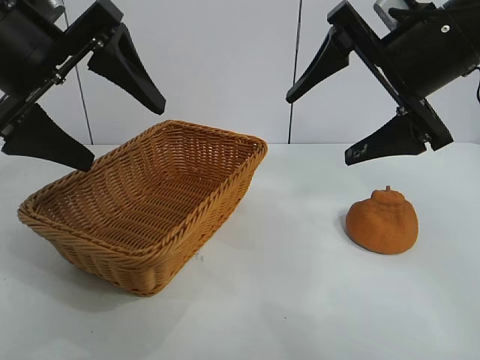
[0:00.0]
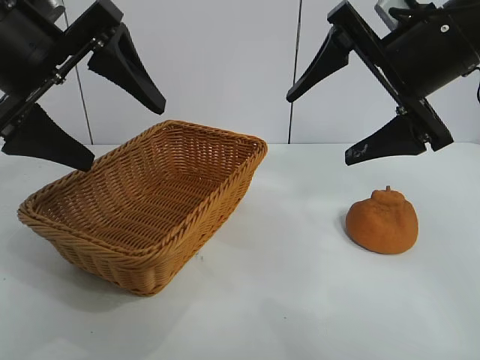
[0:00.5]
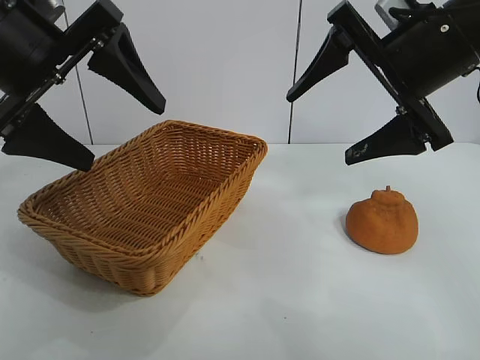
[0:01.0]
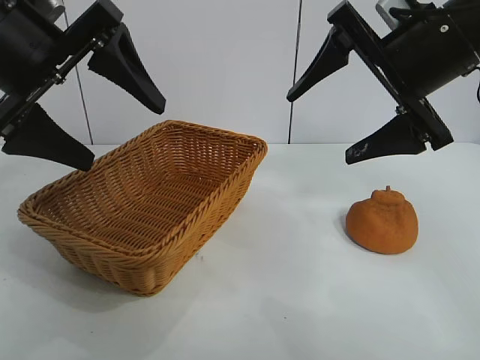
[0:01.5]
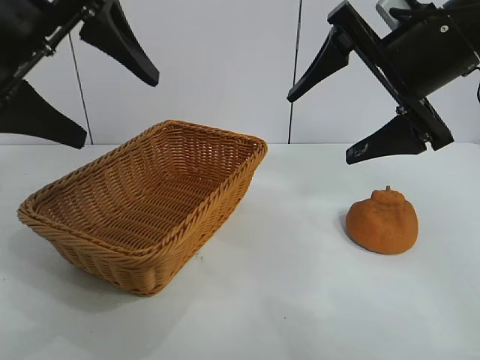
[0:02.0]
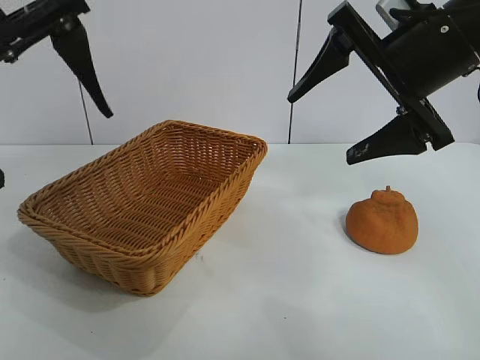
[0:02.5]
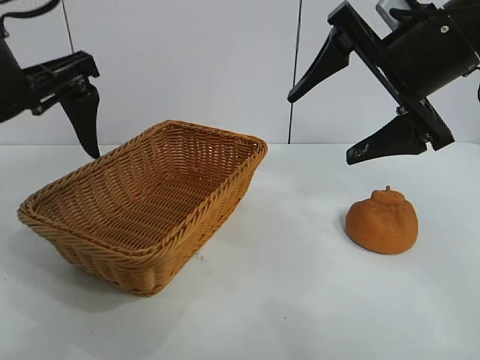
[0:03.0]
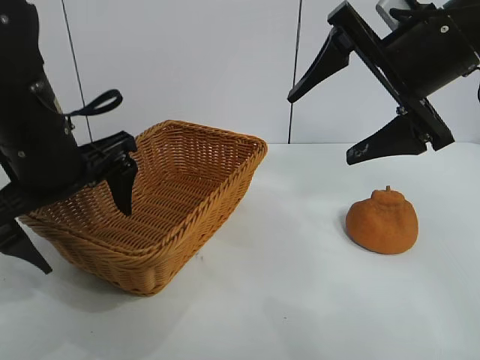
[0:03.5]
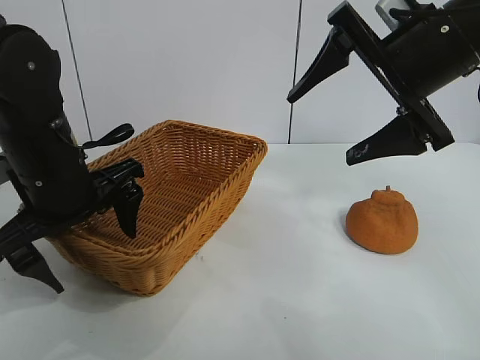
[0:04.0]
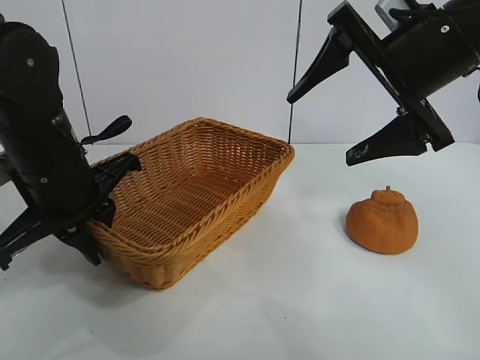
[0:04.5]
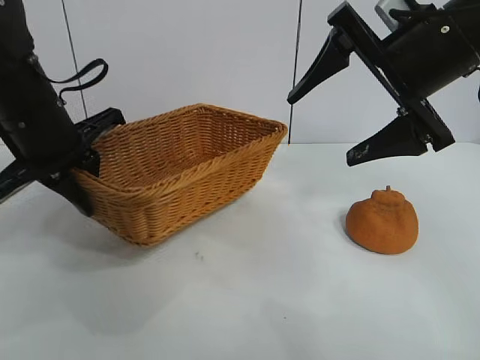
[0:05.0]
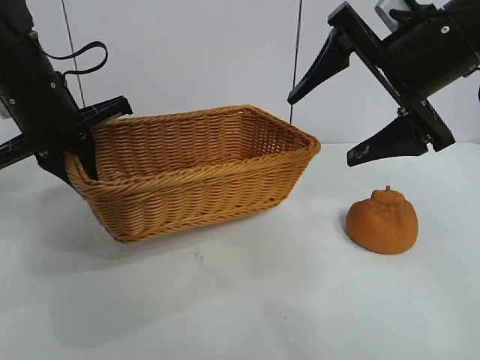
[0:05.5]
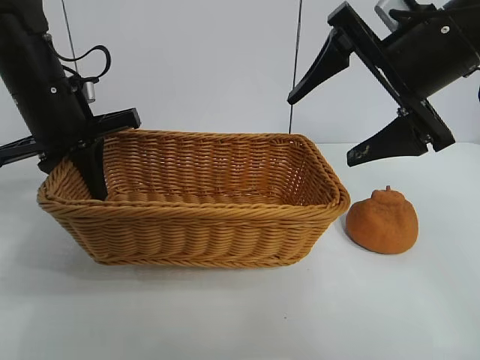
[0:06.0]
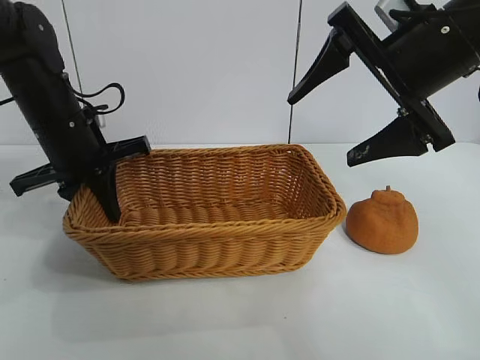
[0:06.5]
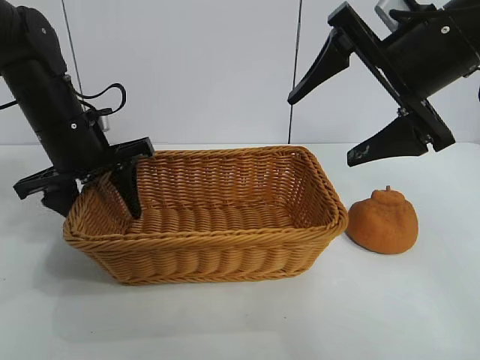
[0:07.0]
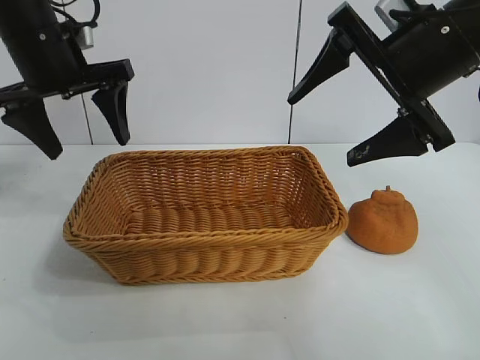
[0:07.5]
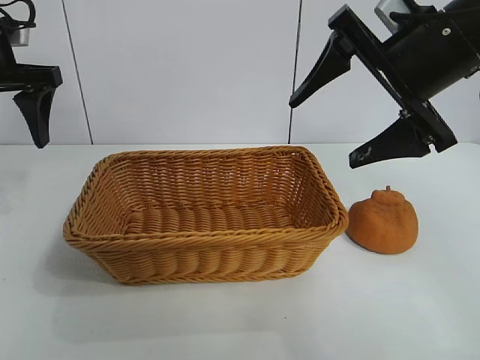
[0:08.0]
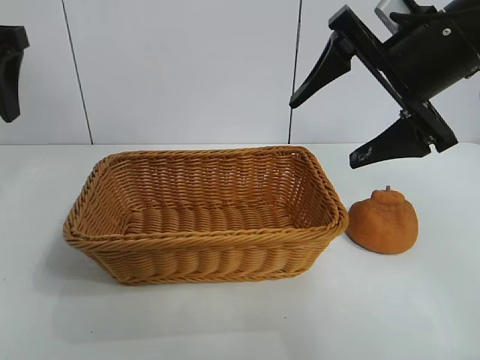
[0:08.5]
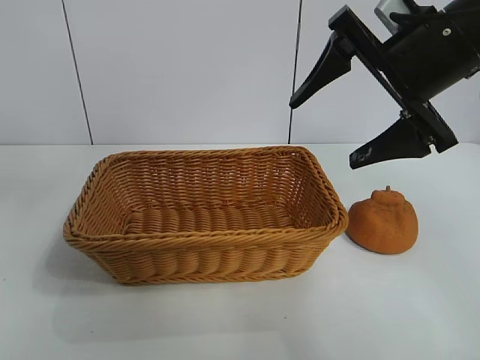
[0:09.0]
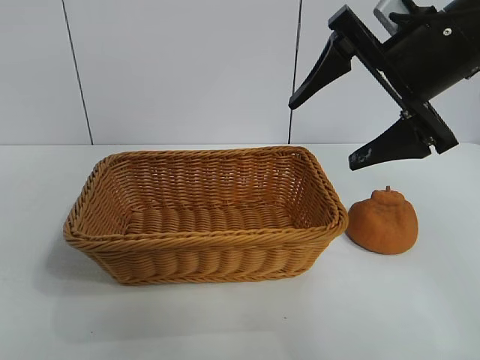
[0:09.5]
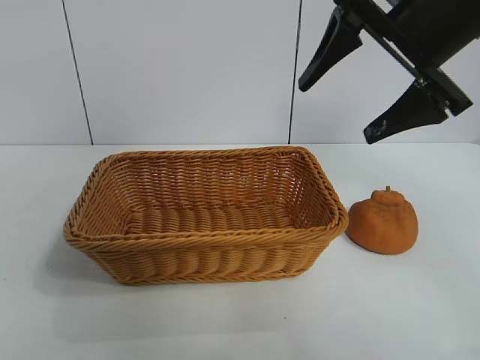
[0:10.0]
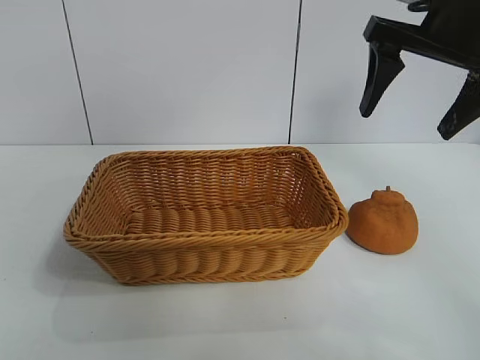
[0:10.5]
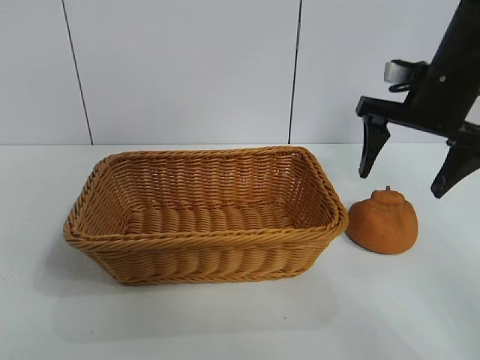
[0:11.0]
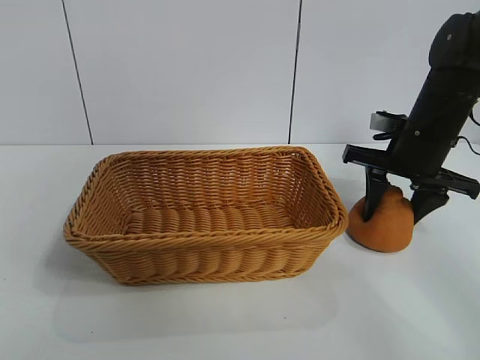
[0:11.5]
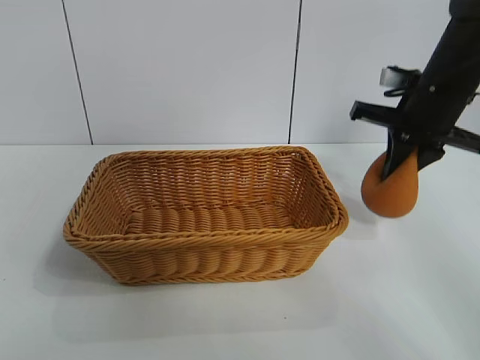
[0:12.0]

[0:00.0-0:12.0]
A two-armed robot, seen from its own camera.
Task of the whole recording: pick up the orange and put it into the basket.
Step, 0:02.0 to 0:04.0: Grasp the basket with left gripper.
Step, 0:05.0 to 0:07.0: Place the basket in the center of view with left gripper.
Step, 0:07.5 to 0:11.5: Grasp the orange with right gripper.

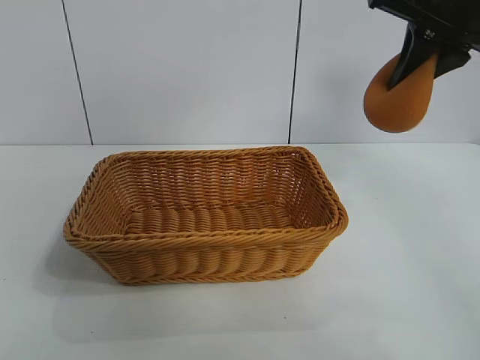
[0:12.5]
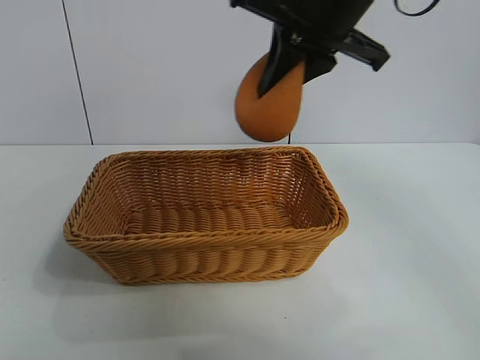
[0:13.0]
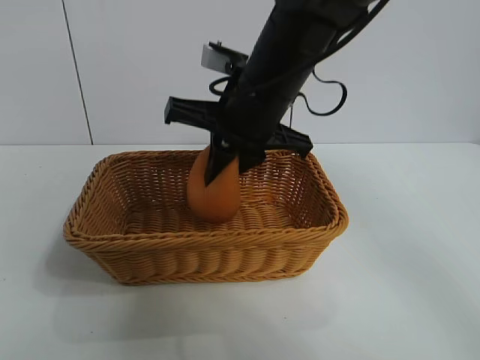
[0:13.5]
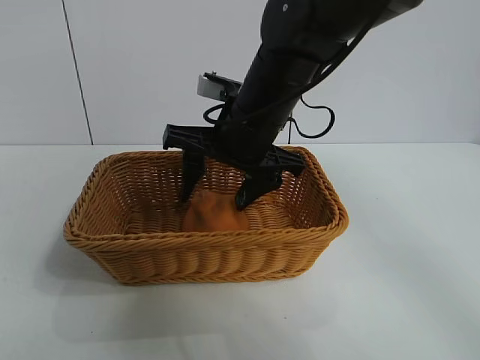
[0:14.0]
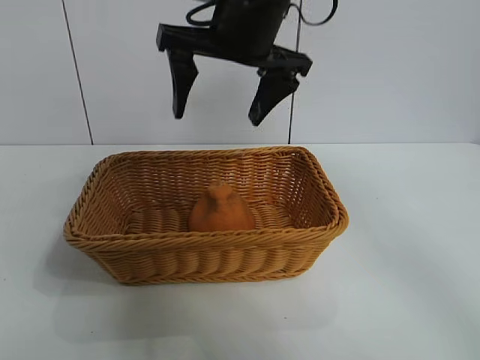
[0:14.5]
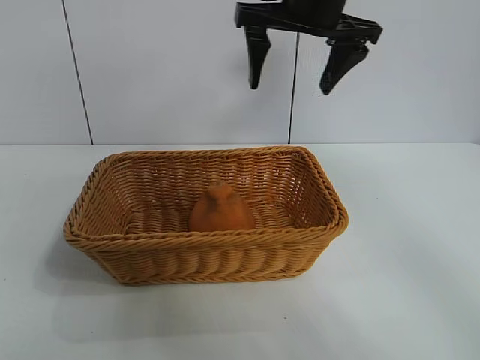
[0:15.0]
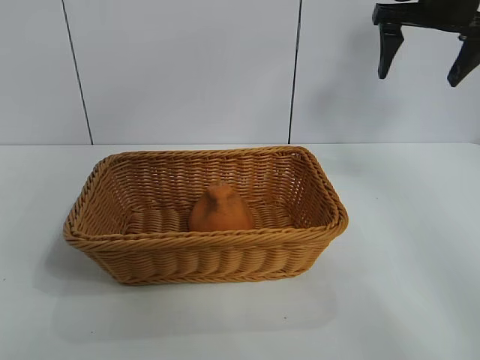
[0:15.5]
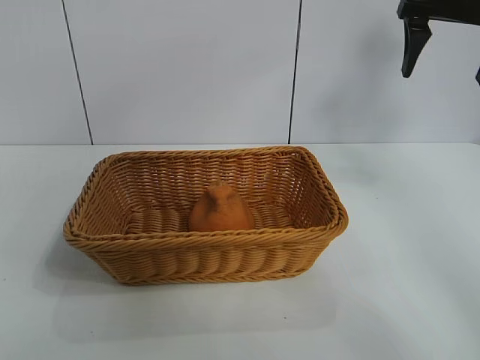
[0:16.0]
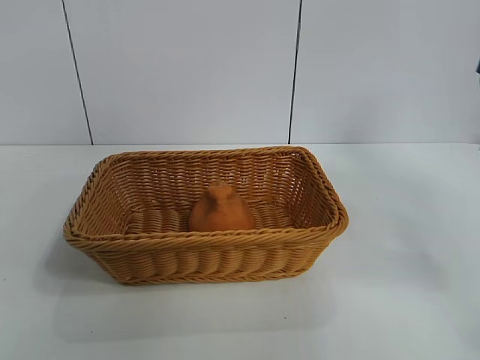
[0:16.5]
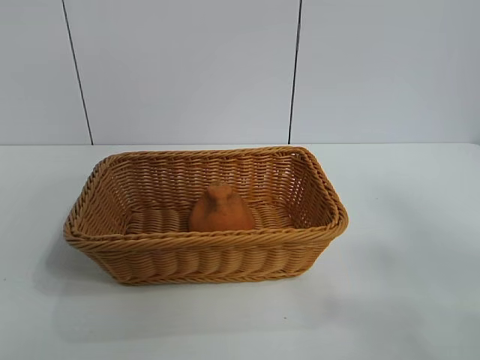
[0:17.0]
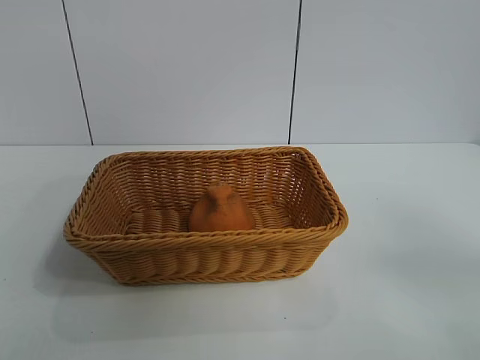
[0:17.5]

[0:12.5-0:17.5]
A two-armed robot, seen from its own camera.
Task of the whole recording: pick up the orange and put it into the basket.
Step, 0:12.5 to 0:14.0: Place the orange in the basket with right gripper.
